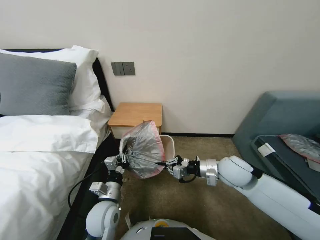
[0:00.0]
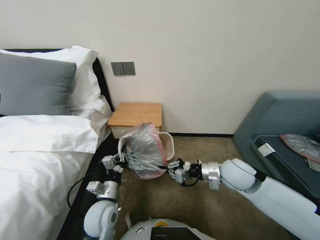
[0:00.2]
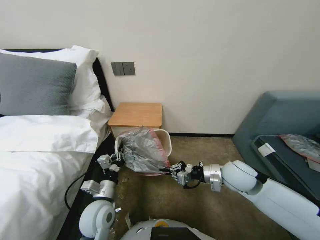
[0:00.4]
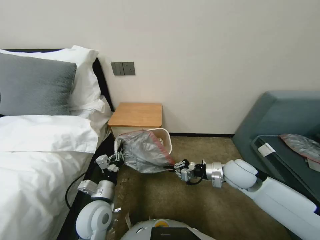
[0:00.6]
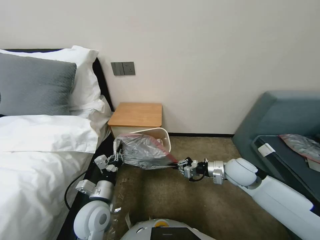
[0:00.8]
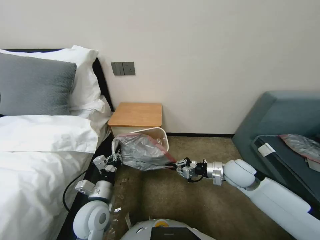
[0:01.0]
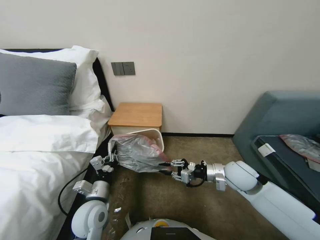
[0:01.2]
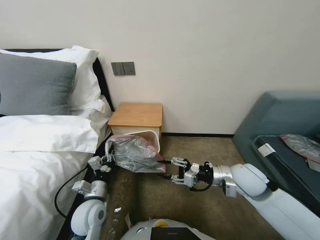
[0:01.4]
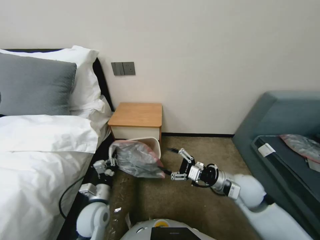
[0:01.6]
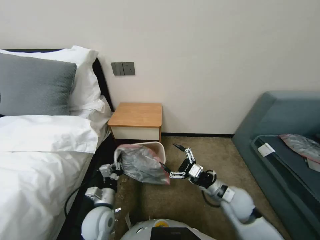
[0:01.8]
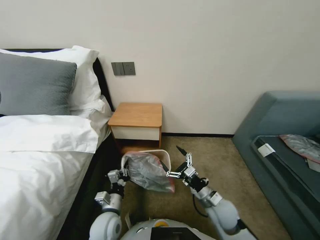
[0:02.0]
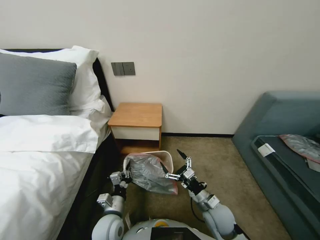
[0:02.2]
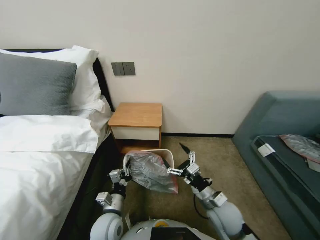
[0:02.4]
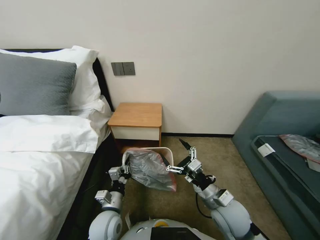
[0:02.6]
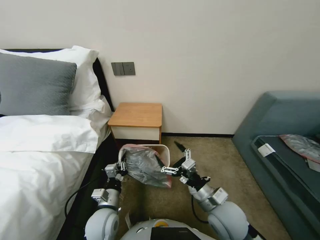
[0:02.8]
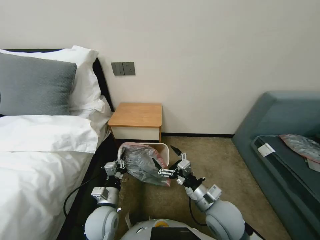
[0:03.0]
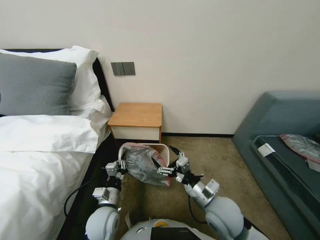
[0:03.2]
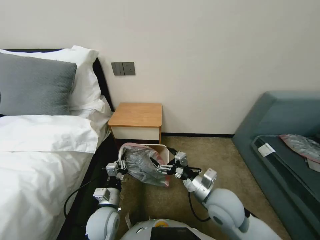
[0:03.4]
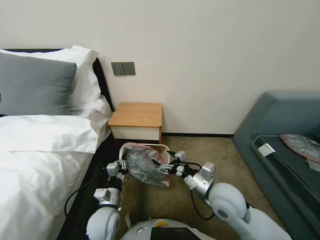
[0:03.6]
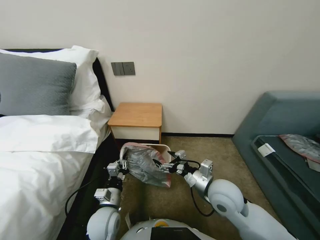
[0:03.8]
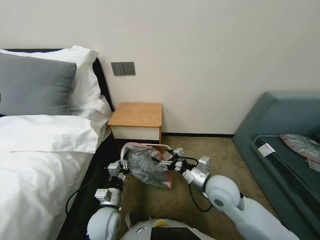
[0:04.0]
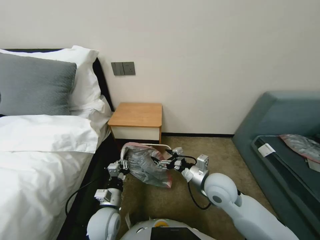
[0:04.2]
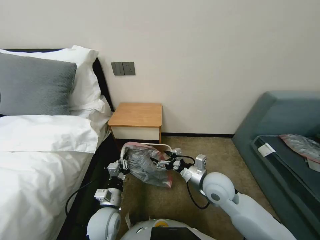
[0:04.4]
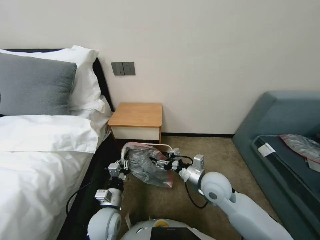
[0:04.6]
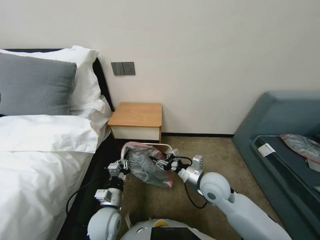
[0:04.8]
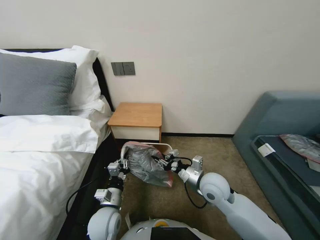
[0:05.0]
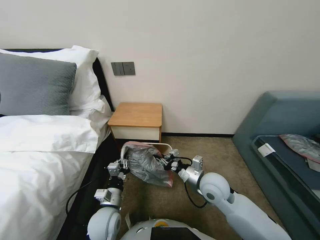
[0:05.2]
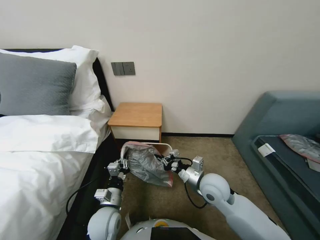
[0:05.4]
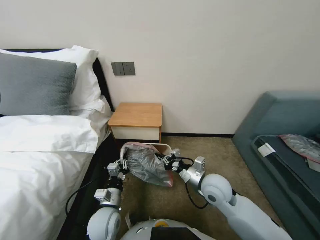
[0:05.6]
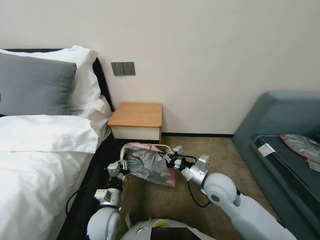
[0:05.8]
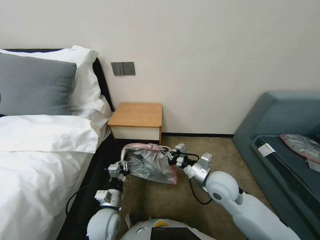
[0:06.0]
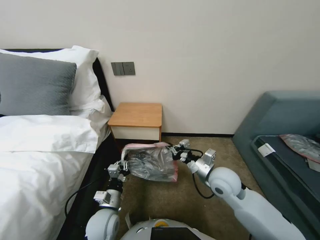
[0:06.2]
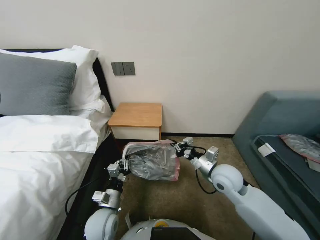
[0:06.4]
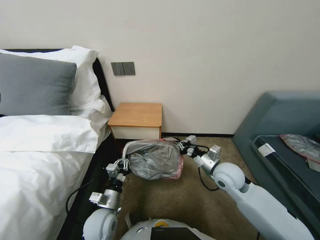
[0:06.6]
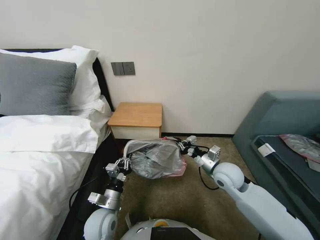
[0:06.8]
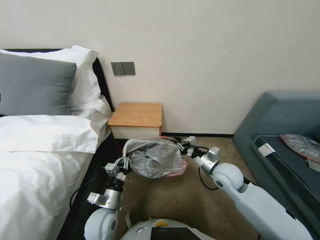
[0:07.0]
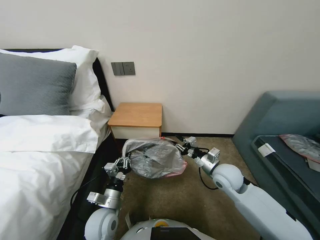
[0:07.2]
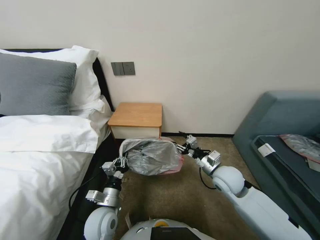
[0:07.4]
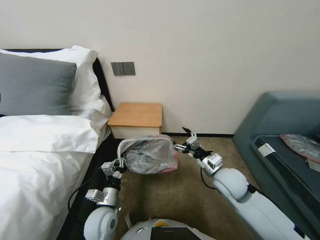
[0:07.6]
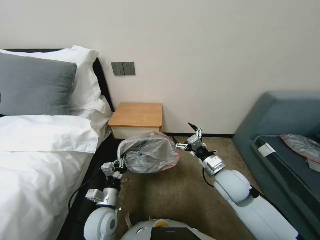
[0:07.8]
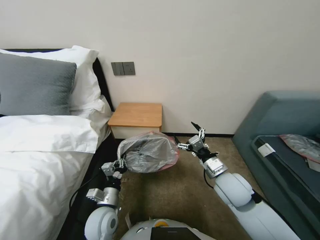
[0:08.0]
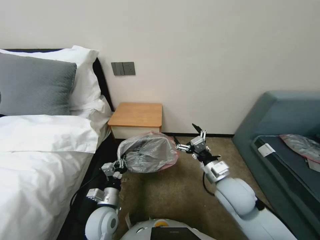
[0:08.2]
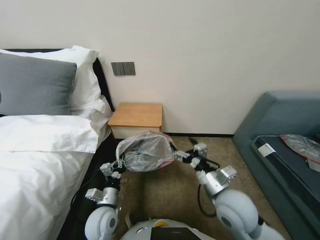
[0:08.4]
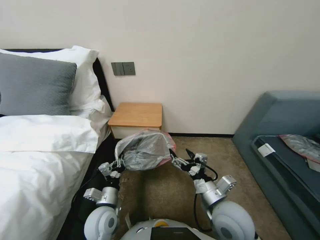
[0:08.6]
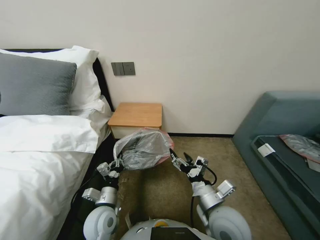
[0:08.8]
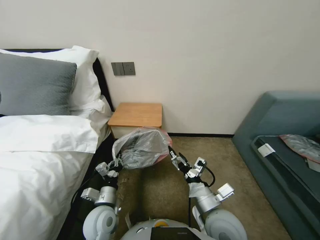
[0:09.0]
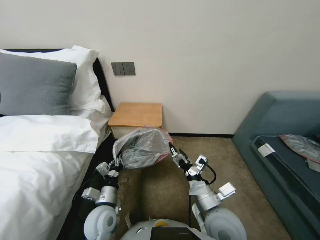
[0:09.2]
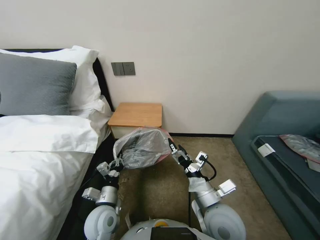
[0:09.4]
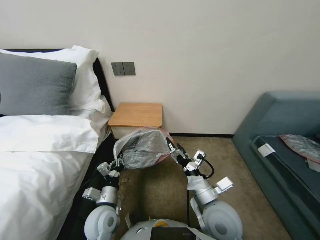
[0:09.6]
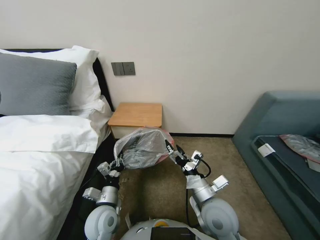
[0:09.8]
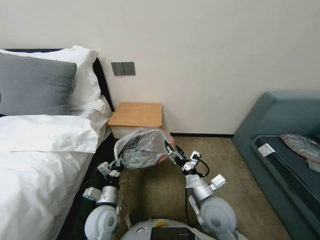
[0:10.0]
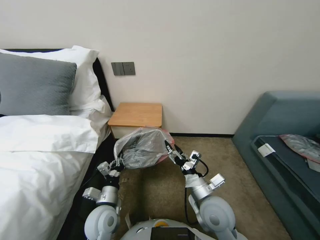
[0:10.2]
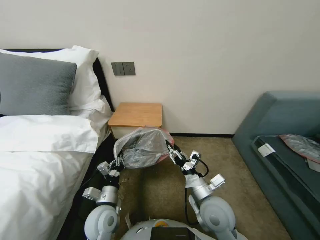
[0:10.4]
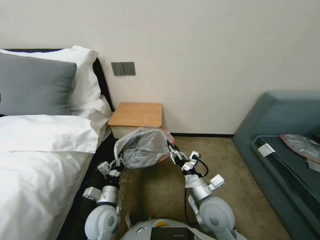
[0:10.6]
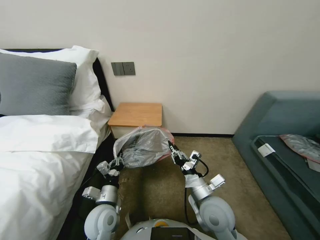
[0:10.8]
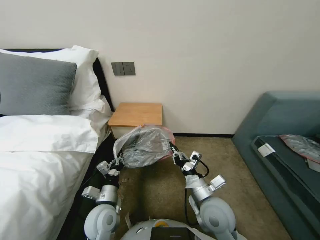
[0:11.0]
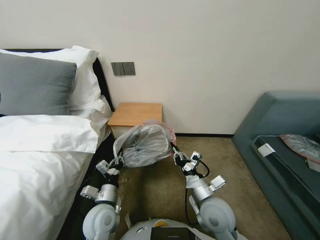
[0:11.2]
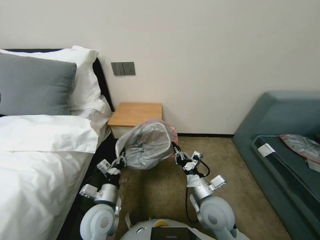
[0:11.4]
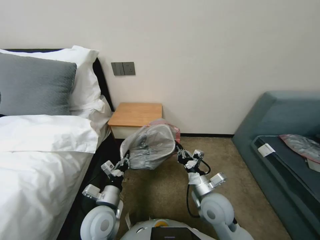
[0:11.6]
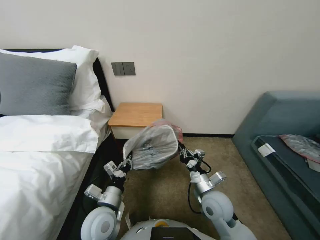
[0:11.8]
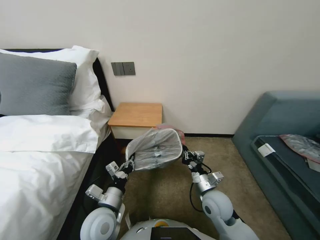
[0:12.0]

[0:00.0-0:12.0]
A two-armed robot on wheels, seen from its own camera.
Task of the whole recording: Pick up the garbage bag from the table and place it over the trash can.
0:00.0 to 0:01.6: The right gripper changes place by roughly 5 cm, and opens its fingers.
0:01.6 to 0:03.0: The right gripper shifts approximately 10 cm to the left and backward, reaches about 15 cm downward, then returns, and opens its fingers.
0:03.0 to 0:04.4: The right gripper heads forward, covering approximately 10 cm.
0:04.4 to 0:06.0: The right gripper closes.
0:06.0 to 0:07.6: The right gripper opens up.
0:07.6 to 0:09.0: The right gripper goes some 15 cm backward and to the left.
0:09.0 to 0:10.4: The grippers stay close to where they were, moving slightly.
0:10.4 to 0:12.0: The right gripper changes place by some 5 cm, and closes.

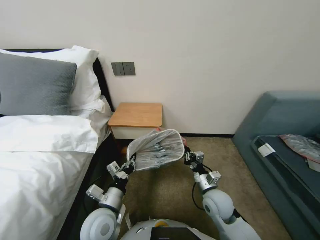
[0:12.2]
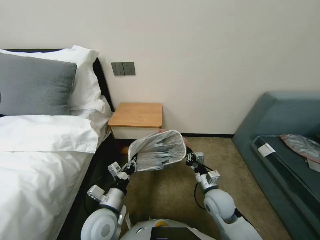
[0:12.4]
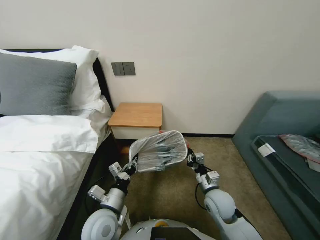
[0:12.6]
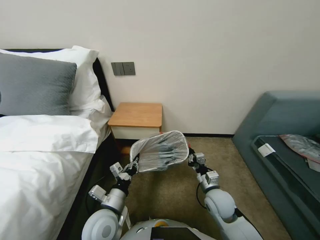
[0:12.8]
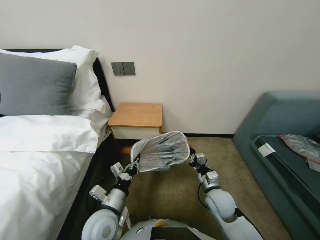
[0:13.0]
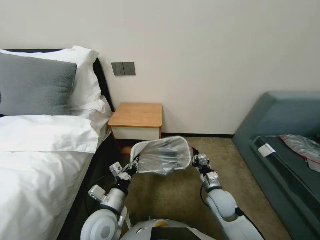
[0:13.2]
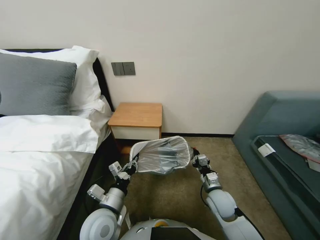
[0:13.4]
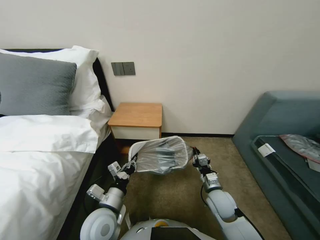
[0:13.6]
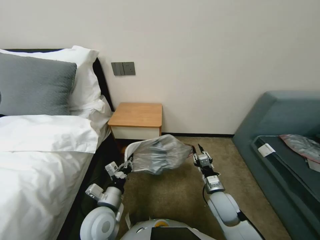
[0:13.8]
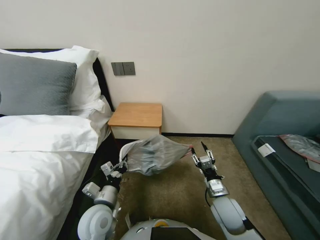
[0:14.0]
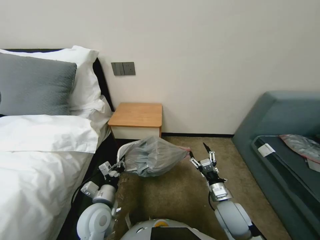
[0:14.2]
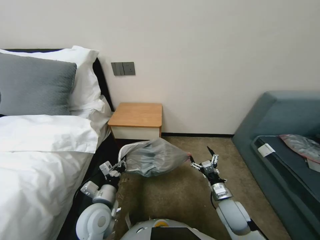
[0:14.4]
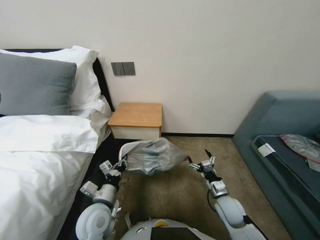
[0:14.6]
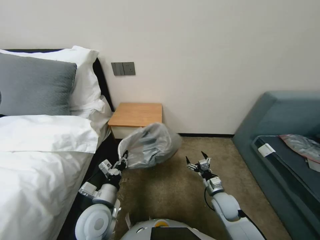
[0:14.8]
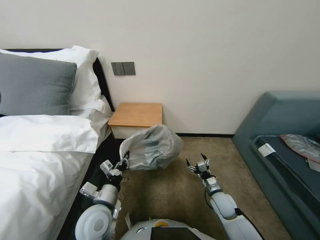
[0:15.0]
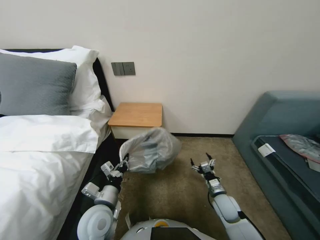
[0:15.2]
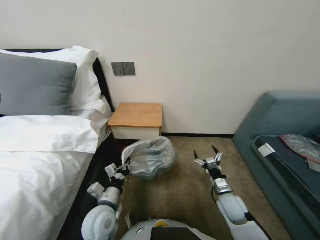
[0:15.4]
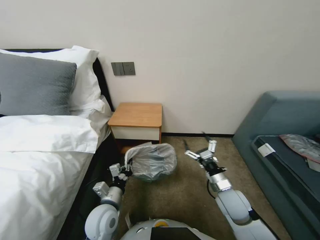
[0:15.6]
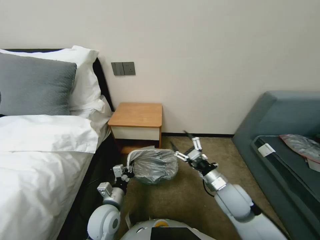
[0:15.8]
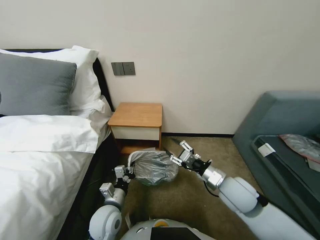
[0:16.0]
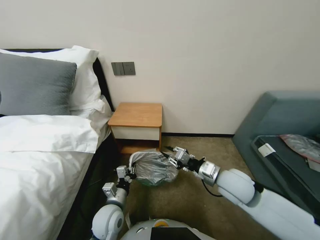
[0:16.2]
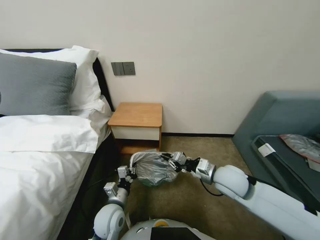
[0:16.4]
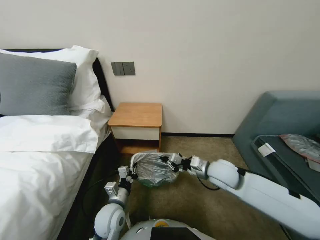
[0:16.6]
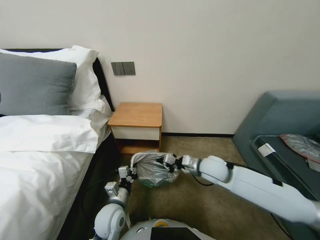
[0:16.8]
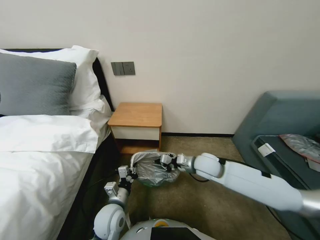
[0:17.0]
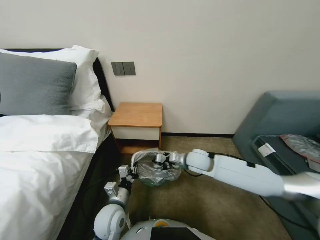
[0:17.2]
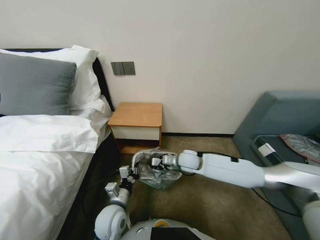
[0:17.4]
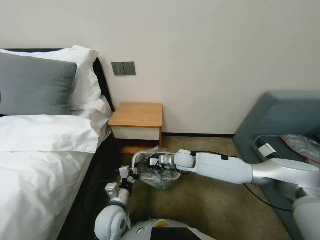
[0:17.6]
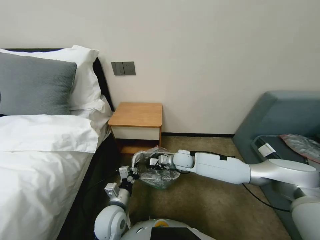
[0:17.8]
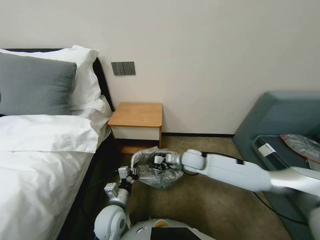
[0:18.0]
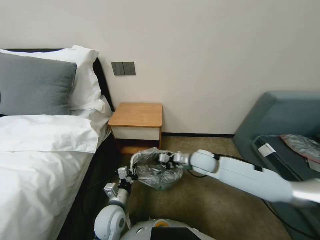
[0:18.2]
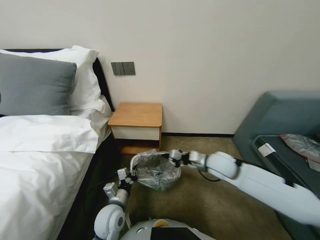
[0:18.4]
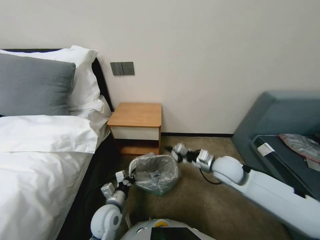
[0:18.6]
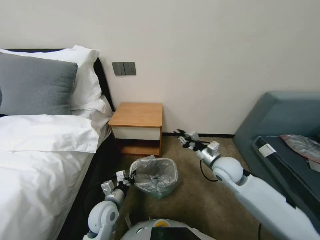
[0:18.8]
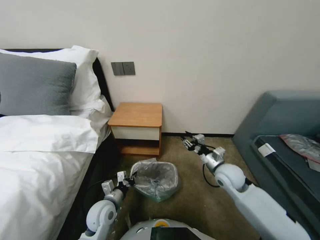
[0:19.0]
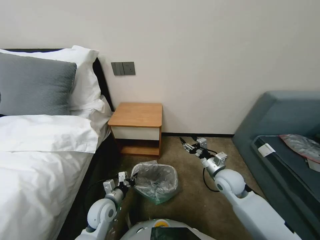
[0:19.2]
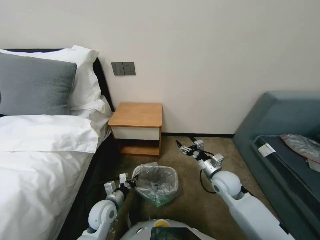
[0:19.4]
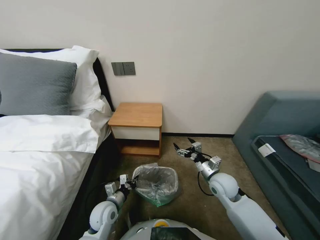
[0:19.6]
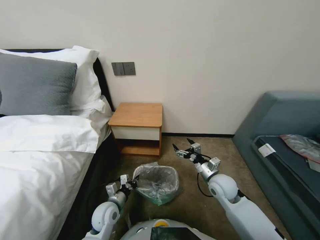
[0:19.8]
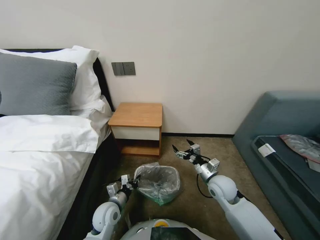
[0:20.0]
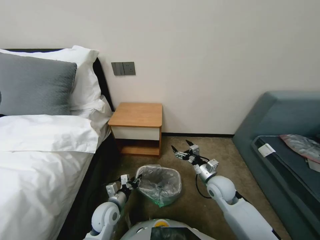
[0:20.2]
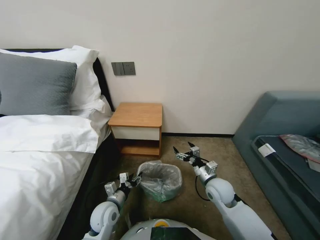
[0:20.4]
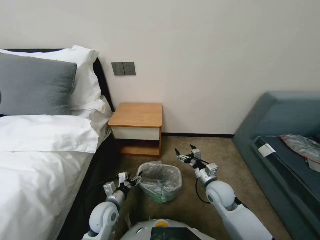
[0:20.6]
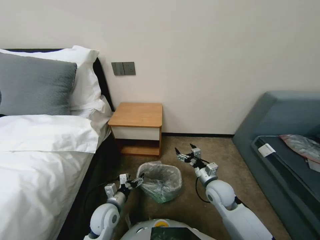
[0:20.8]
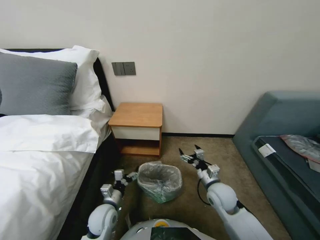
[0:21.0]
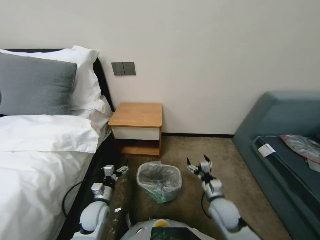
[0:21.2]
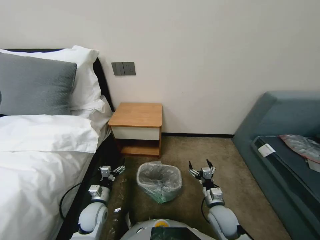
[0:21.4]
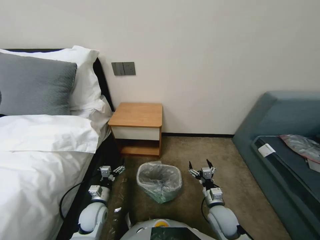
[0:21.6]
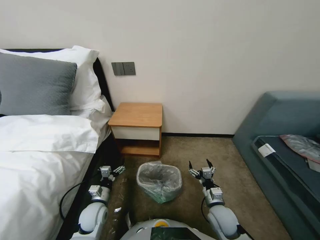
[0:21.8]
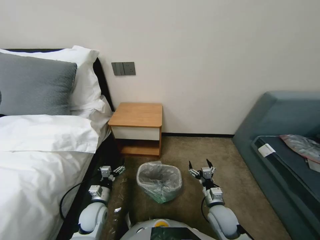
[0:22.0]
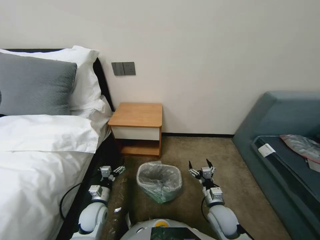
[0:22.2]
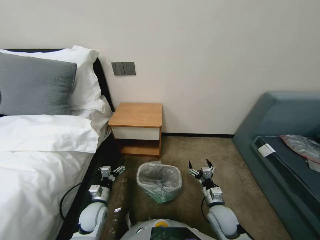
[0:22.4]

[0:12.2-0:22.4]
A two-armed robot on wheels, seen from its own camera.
Task of the whole recording: Pick up the garbage bag from the table and place it over the trash can.
0:12.2 to 0:13.6: The right gripper moves about 5 cm.
0:13.6 to 0:15.2: The right gripper moves downward, roughly 5 cm, and opens its fingers.
0:15.2 to 0:16.6: The right gripper shifts approximately 20 cm upward, and closes up. Meanwhile the left gripper goes roughly 5 cm downward.
0:16.6 to 0:18.0: The right gripper moves forward, to the left and downward, some 15 cm.
0:18.0 to 0:19.4: The right gripper shifts about 15 cm to the right and backward, and opens its fingers. The left gripper travels to the left by about 5 cm.
0:19.4 to 0:21.0: The left gripper opens its fingers. The right gripper ends up some 5 cm from where it was.
0:21.0 to 0:22.4: The left gripper goes approximately 5 cm to the left; the right gripper heads backward and downward, covering roughly 10 cm.
